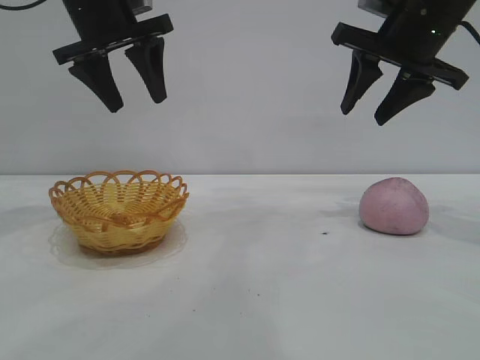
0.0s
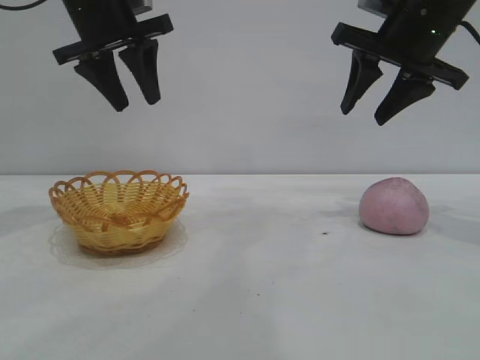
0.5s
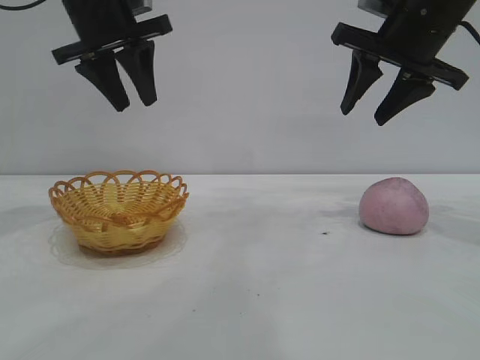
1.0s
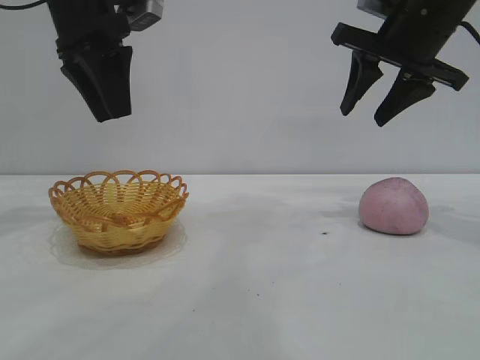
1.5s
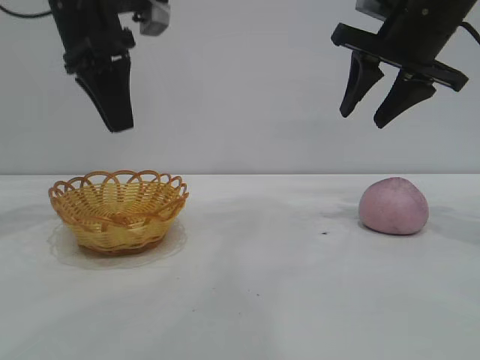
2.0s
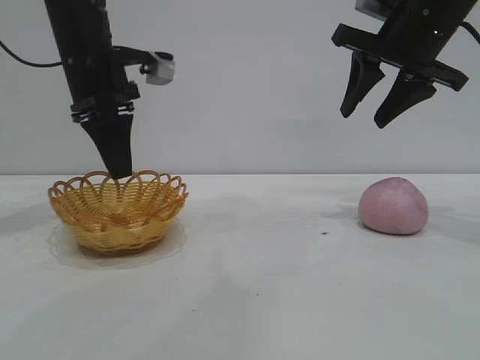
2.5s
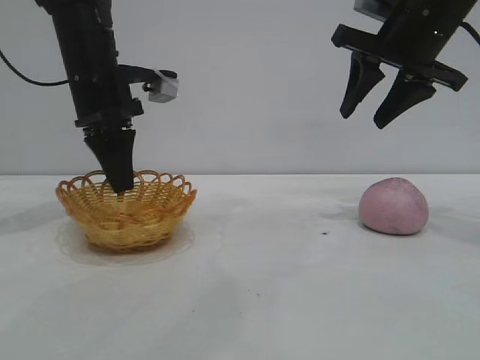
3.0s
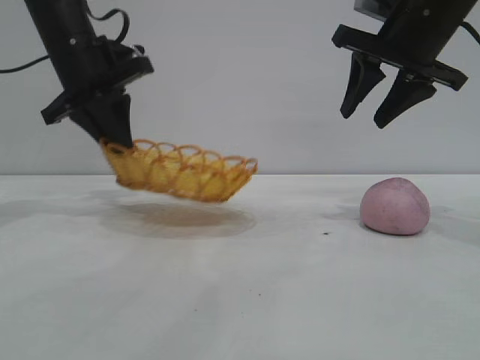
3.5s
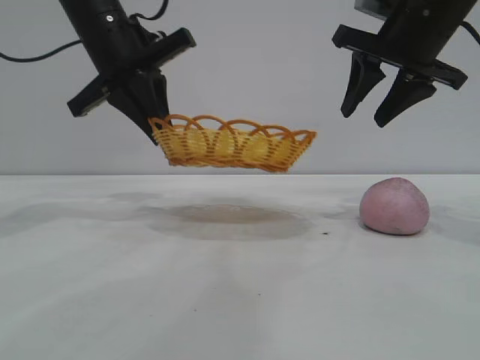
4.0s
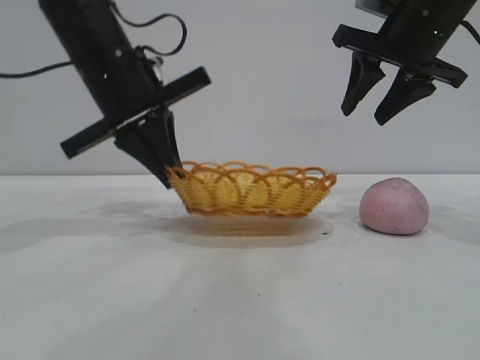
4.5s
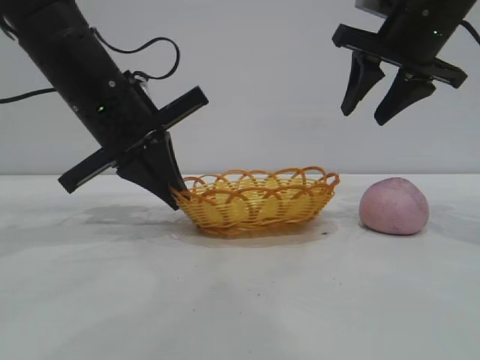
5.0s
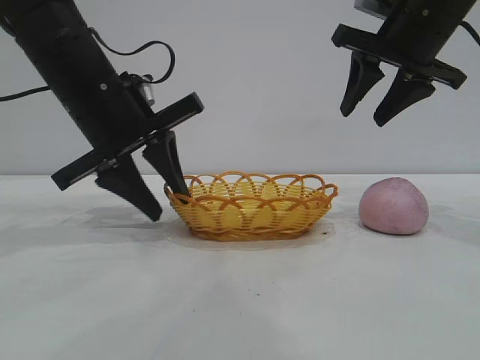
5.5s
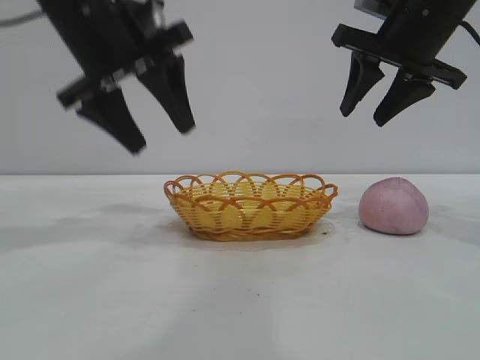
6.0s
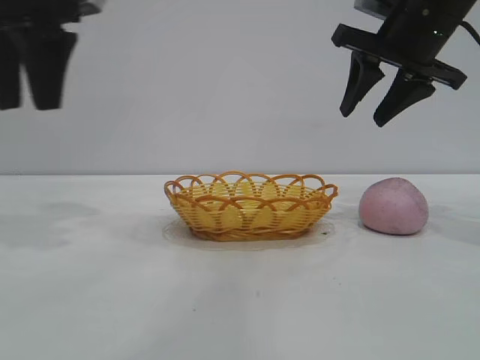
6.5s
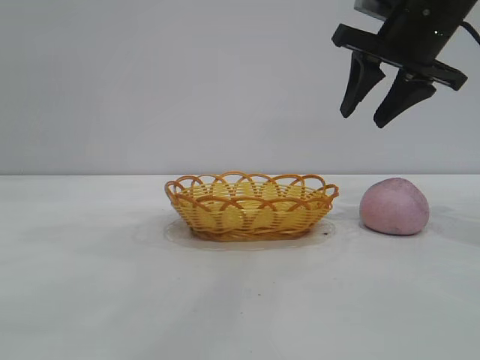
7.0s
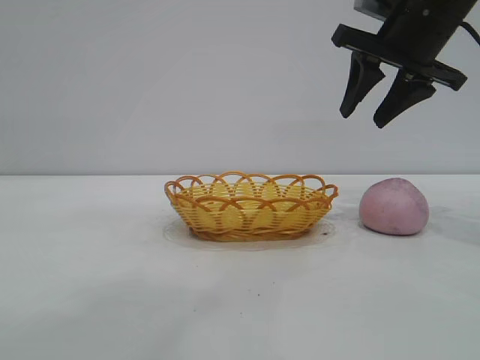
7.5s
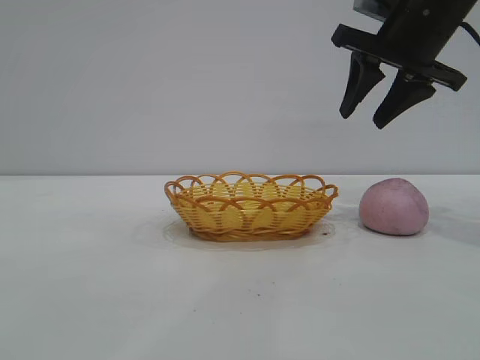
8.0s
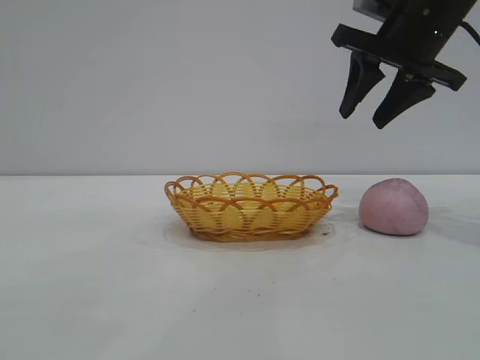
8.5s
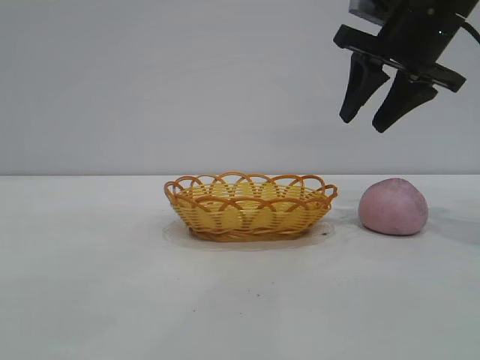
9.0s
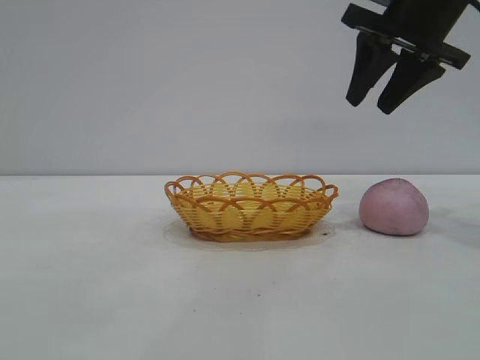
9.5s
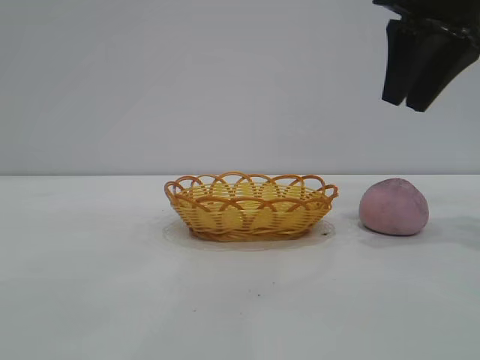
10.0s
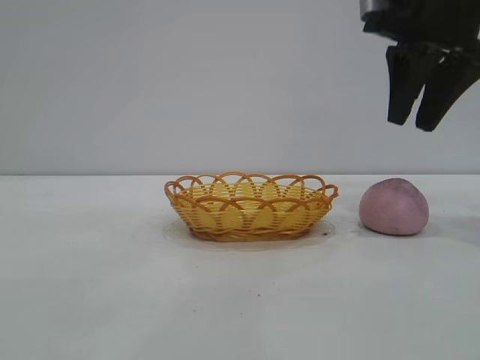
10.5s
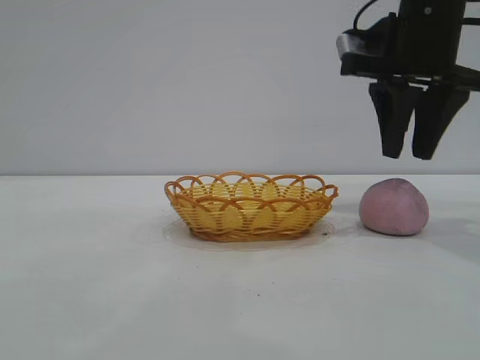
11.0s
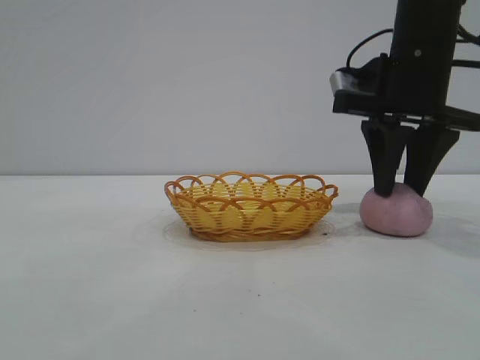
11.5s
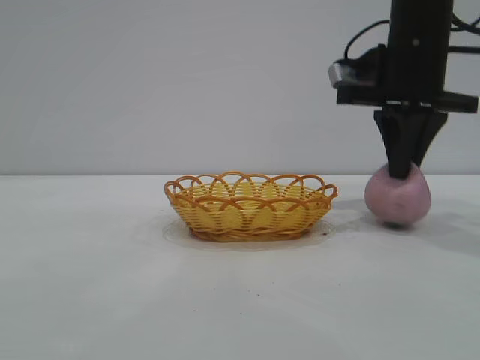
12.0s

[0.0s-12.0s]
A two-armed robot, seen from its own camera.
Task of the whole recording: pick up the peach and put it into the basket.
Step, 0.0s to 5.5s: Move the basket to the center of view.

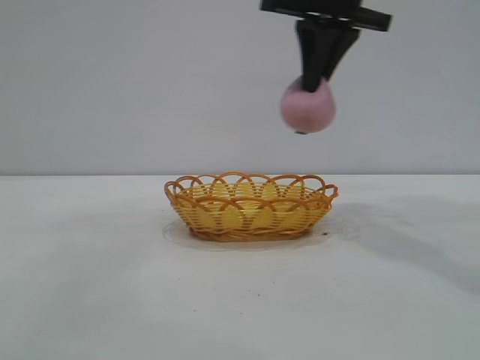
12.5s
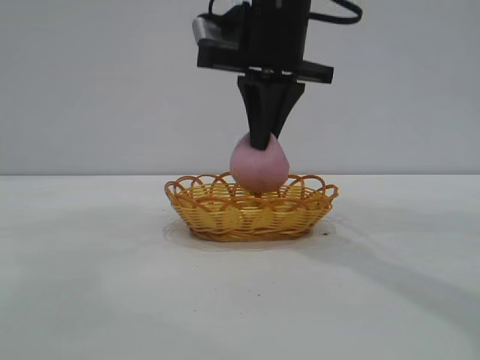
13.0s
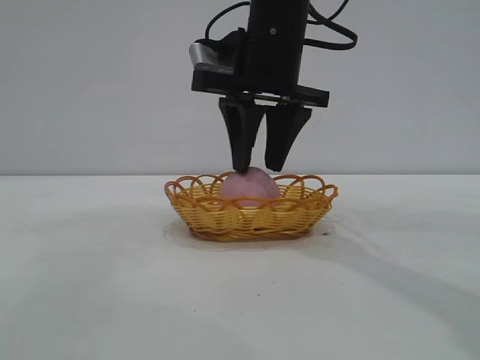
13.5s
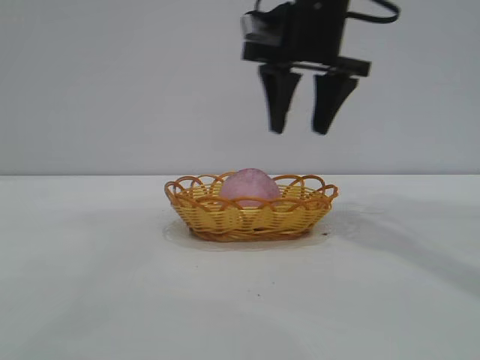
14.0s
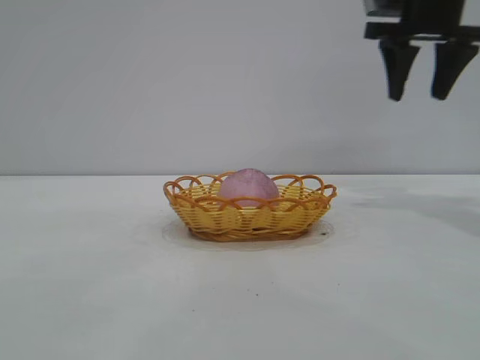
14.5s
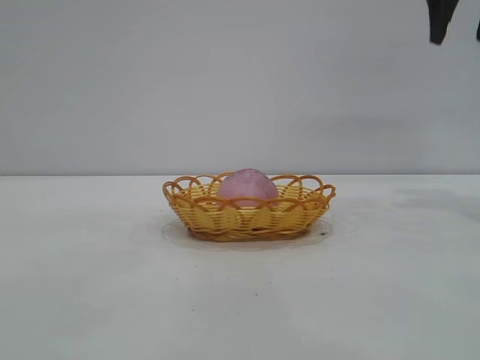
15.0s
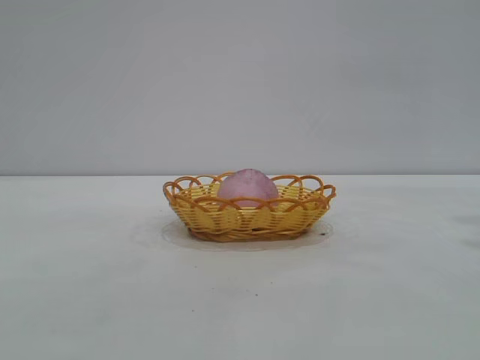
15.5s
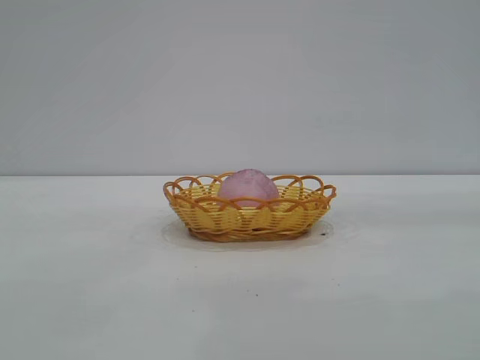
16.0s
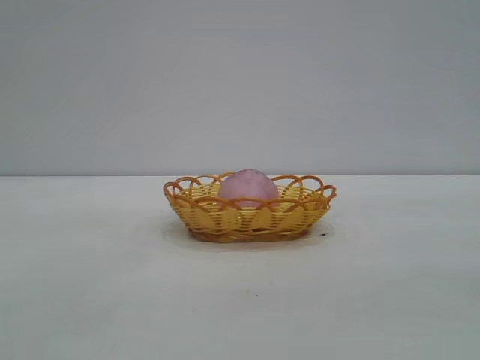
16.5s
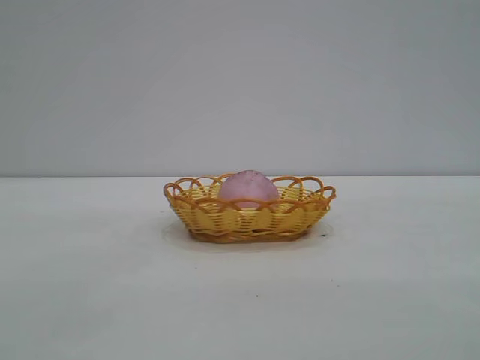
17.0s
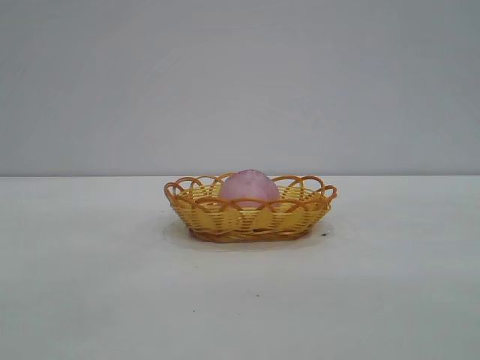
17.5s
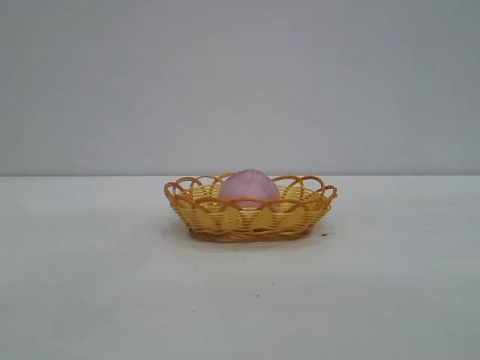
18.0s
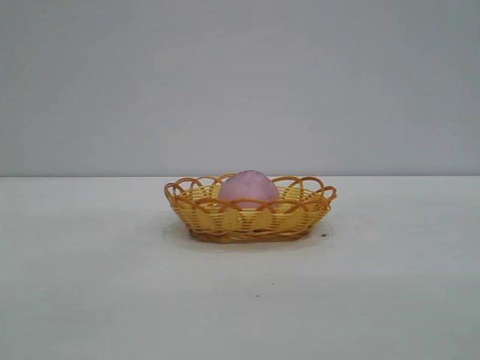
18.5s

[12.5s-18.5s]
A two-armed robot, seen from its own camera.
Task of the whole recording: pick up the peach and put it into the basket.
Step, 12.5s to 13.5s: place the peach into the basket.
